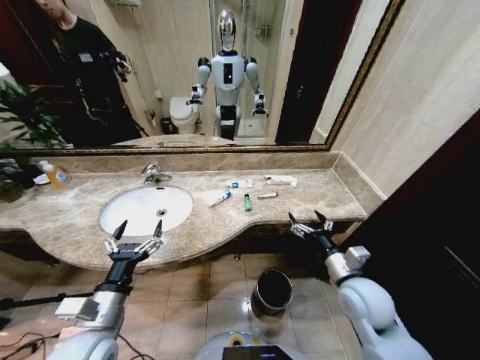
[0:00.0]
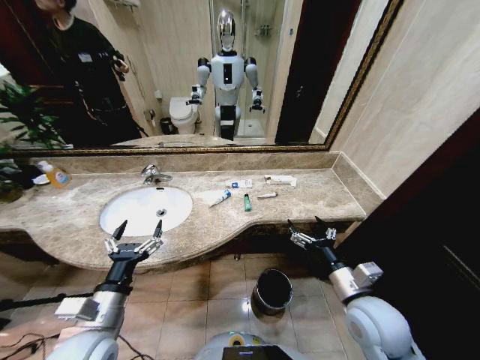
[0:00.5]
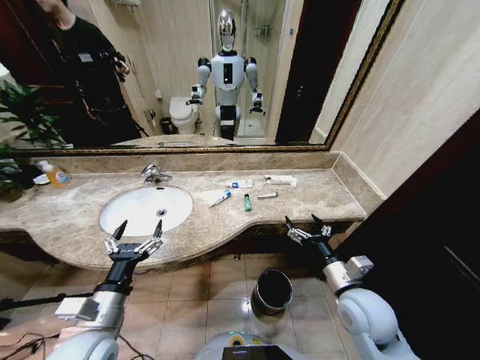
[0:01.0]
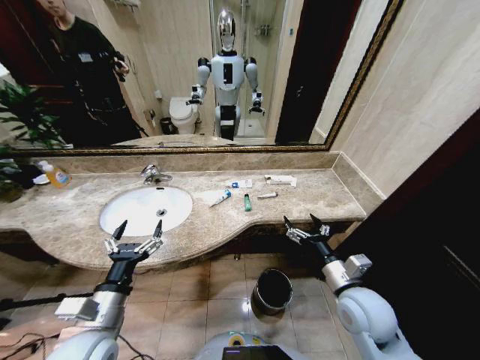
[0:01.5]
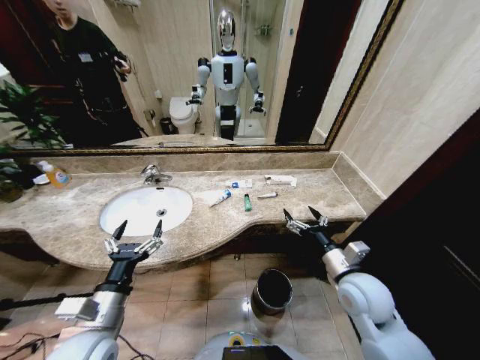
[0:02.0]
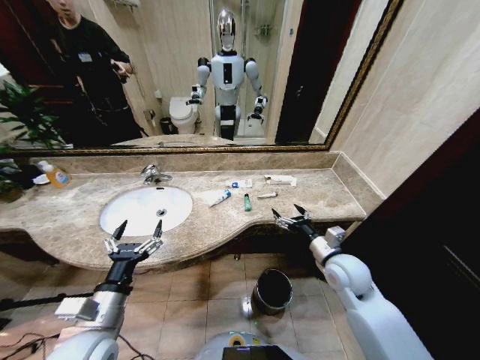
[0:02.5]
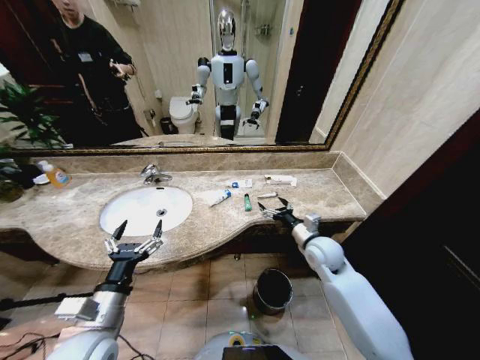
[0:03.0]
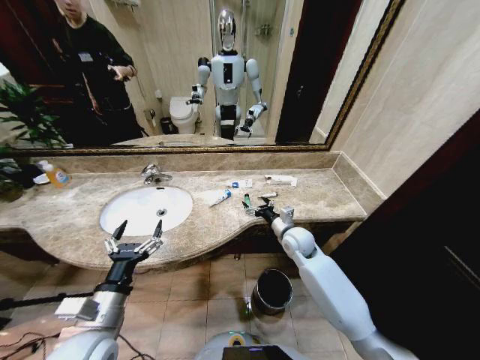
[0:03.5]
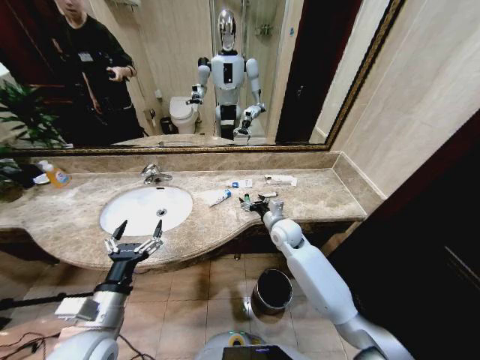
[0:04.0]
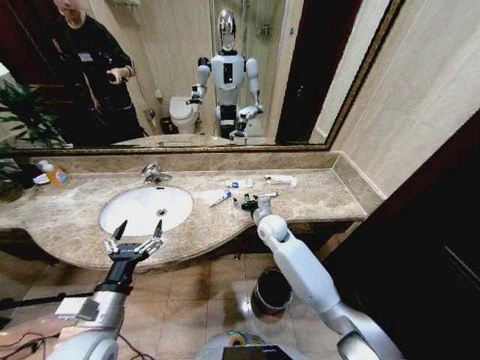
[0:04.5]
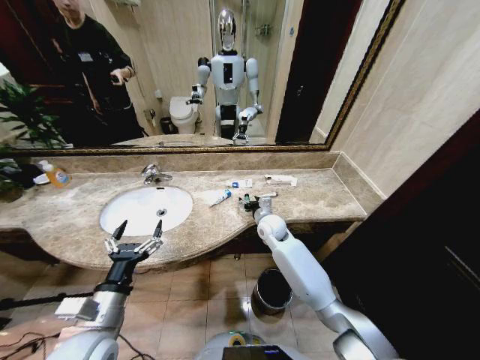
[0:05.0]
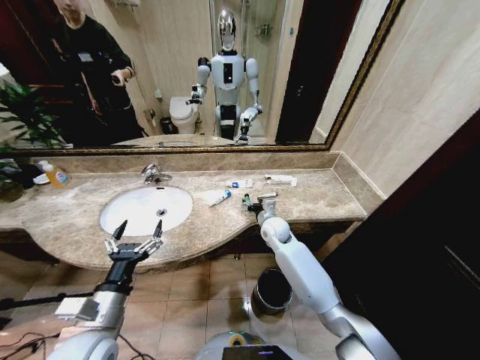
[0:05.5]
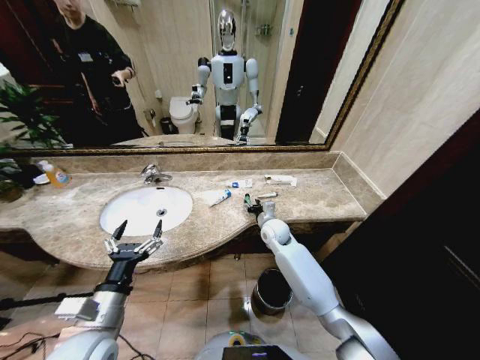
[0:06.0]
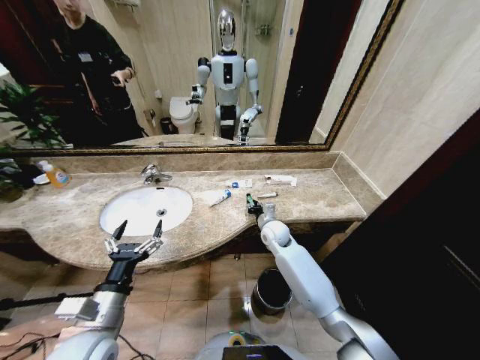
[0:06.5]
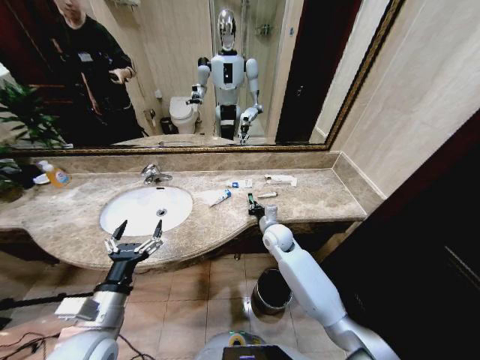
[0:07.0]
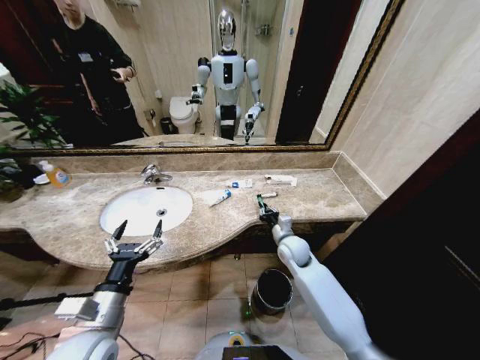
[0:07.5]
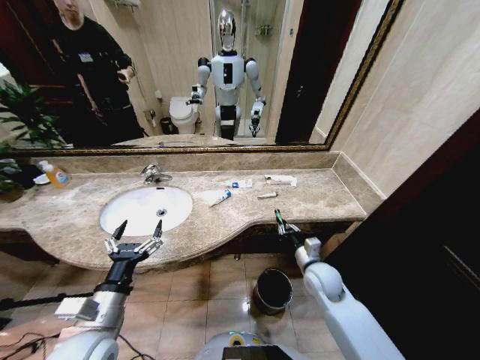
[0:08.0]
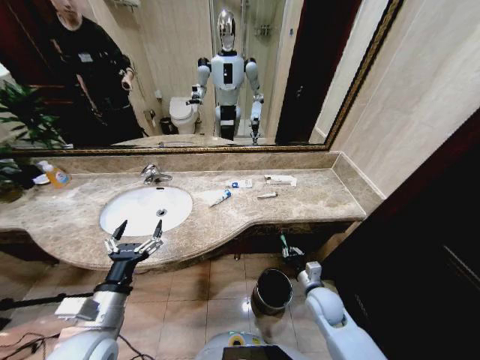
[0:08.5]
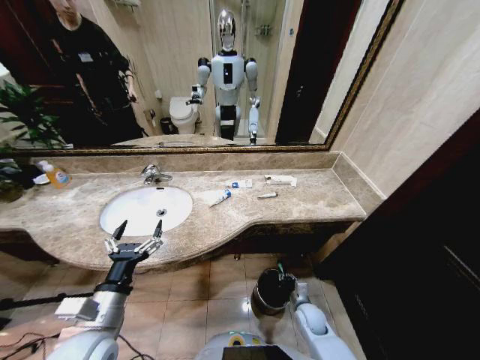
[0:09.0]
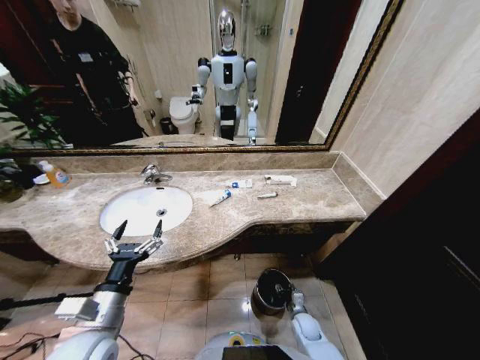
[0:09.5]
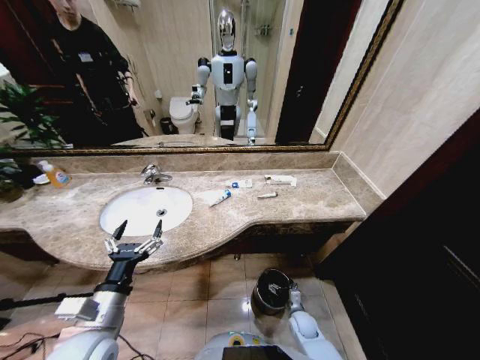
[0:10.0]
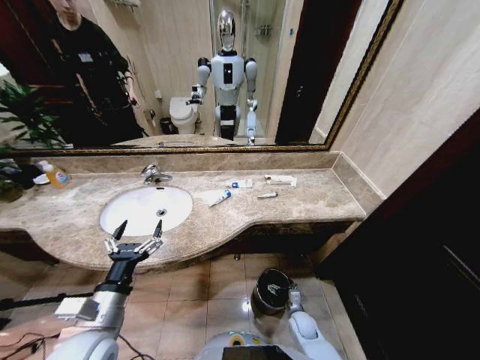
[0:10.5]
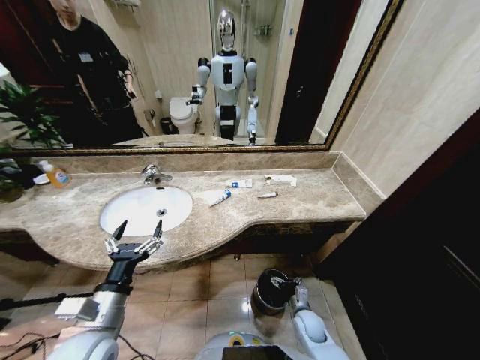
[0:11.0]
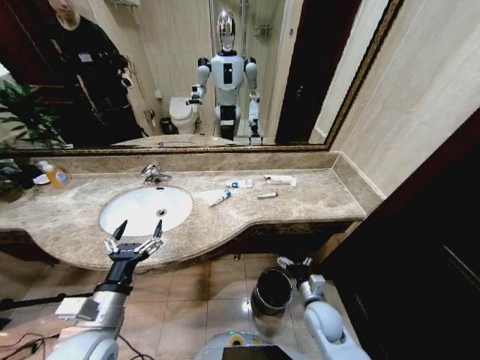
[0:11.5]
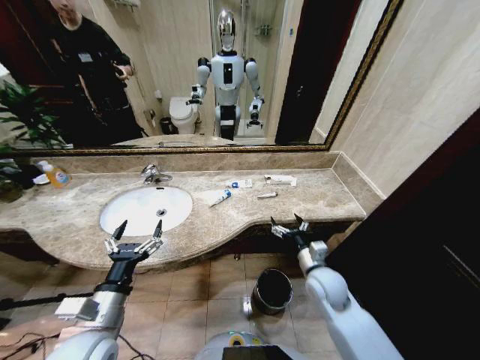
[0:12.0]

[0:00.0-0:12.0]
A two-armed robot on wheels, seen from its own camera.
Task of the whole recording: Pick up the trash from the sink and place it in the trash bin.
2.0 to 4.0 s: The right gripper shifts about 25 cm forward and to the left.
4.0 to 6.0 s: The right gripper closes its fingers.
6.0 to 8.0 s: The right gripper heads backward and to the right, covering approximately 20 cm, and closes up.
8.0 to 10.0 s: The right gripper shifts some 25 cm downward, and opens up.
10.0 to 12.0 s: The right gripper is displaced upward by about 25 cm.

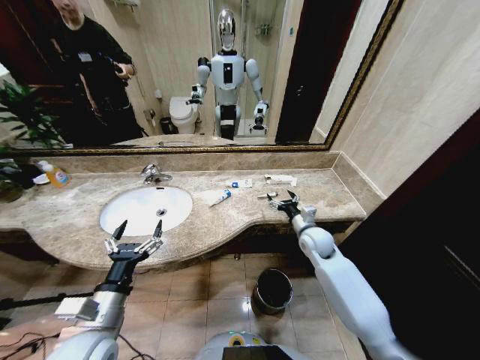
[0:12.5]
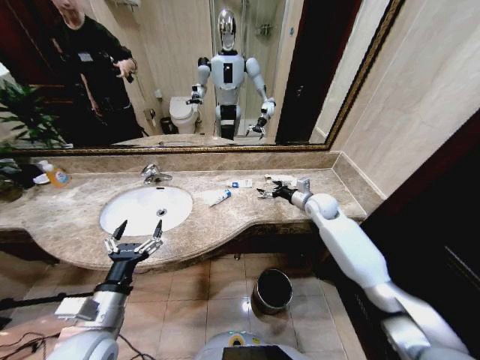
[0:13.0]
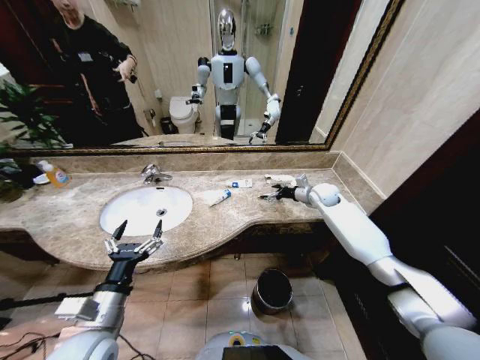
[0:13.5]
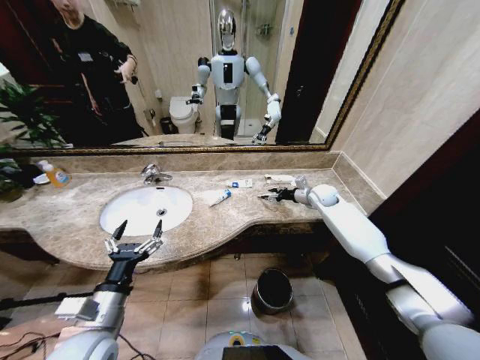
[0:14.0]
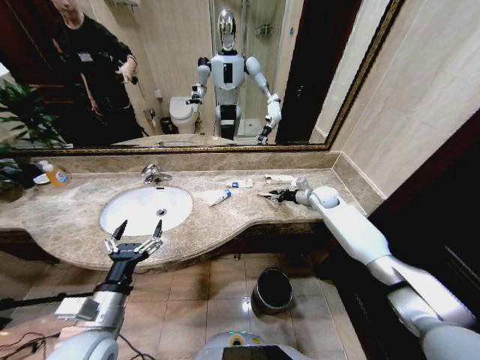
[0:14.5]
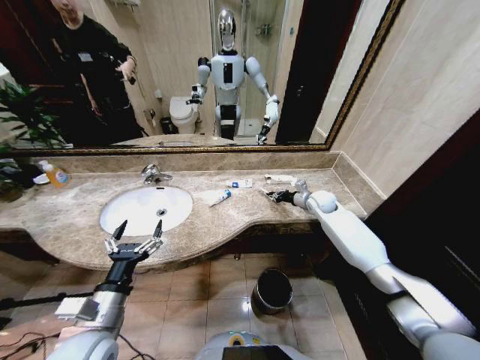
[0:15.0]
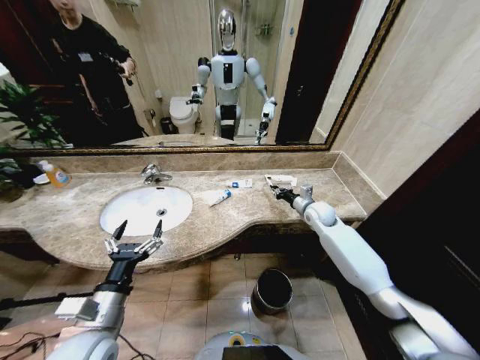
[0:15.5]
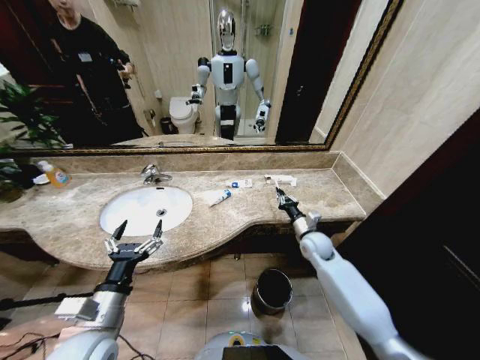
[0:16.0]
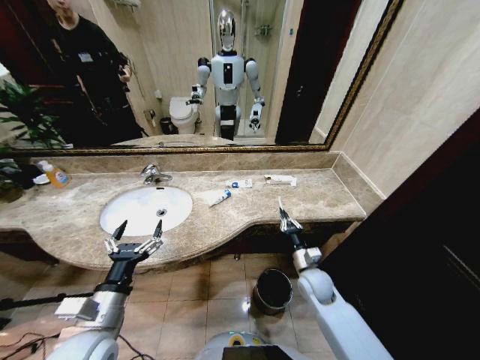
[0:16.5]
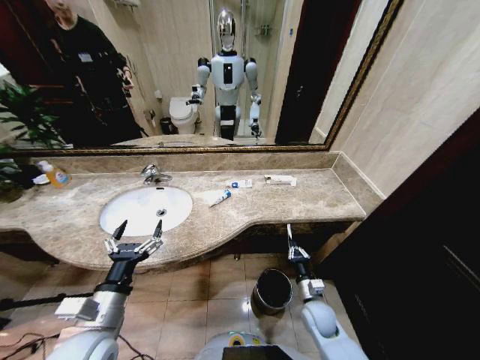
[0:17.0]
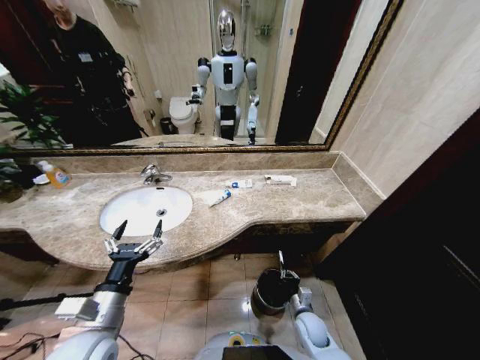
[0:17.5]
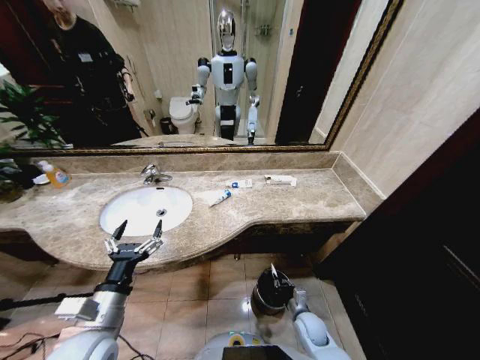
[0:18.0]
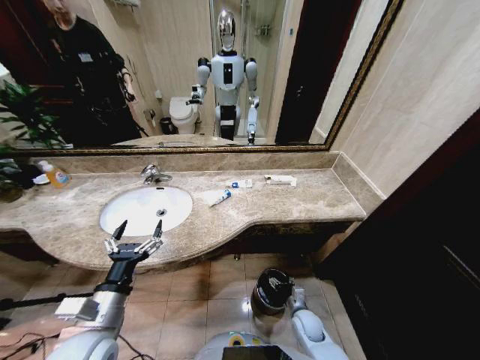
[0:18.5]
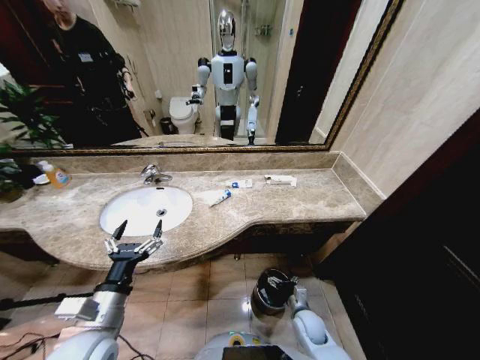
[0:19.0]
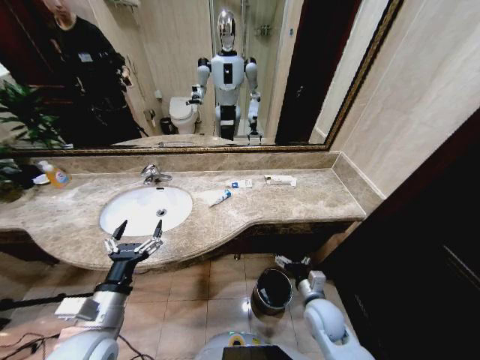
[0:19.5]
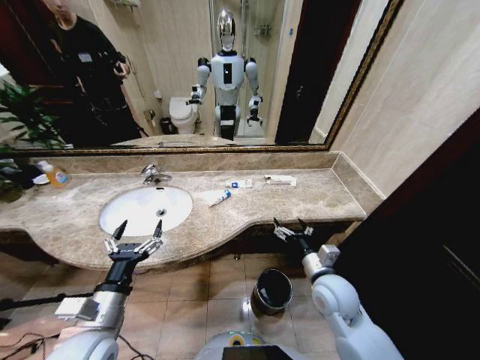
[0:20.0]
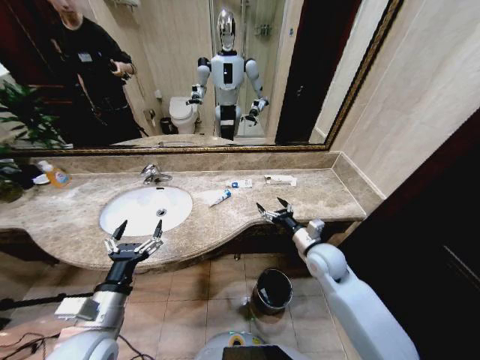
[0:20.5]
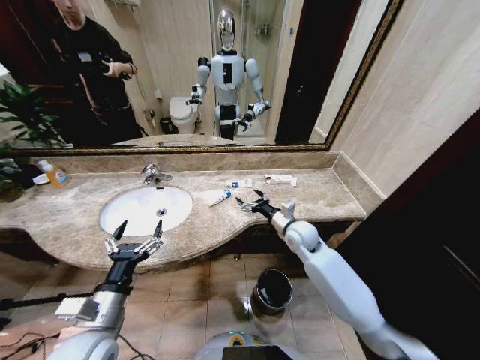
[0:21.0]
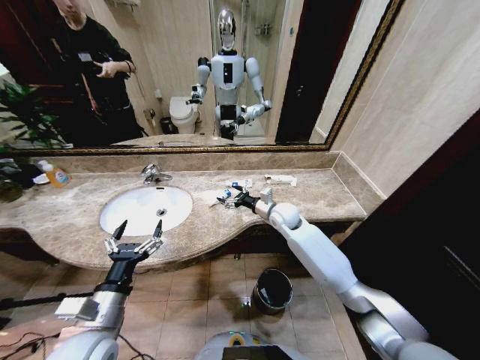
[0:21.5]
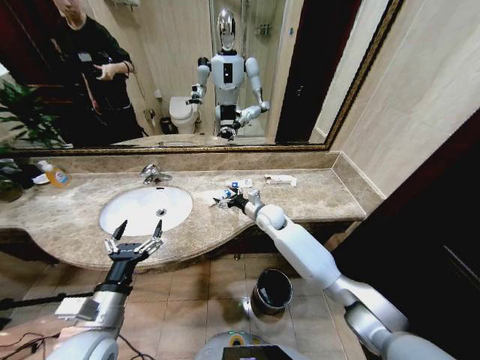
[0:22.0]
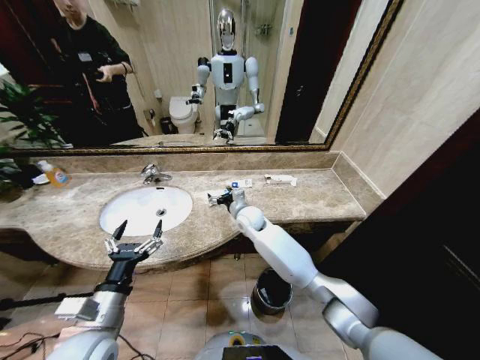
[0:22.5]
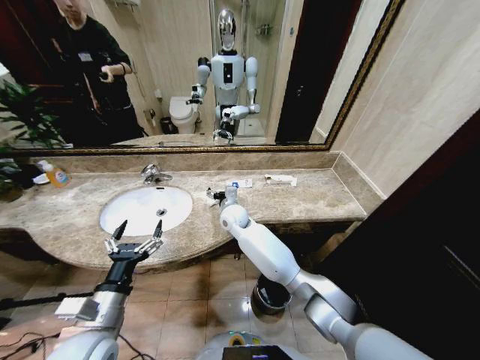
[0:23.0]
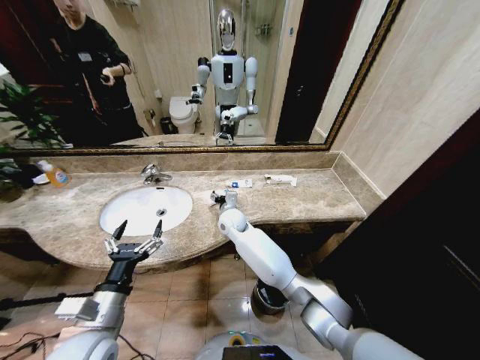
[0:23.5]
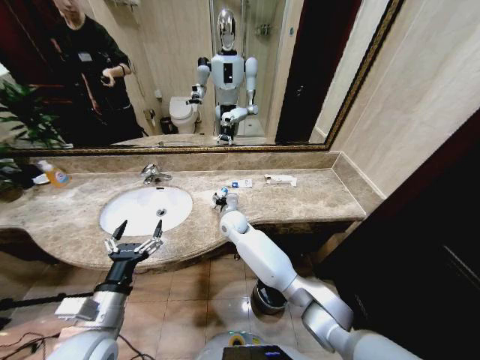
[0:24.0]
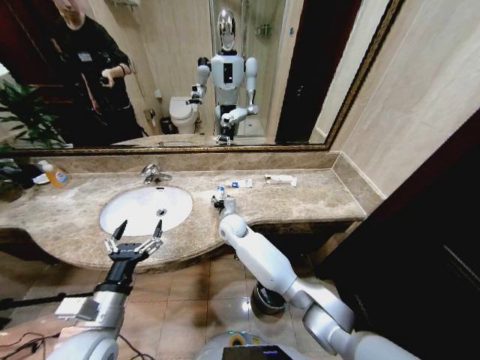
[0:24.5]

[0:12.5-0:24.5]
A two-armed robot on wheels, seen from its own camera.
Task of the whole recording: Pick up the trash from the sink and place it in the trash bin.
12.5 to 14.5 s: The right gripper goes some 20 cm forward and to the right, and closes.
14.5 to 16.5 s: The right gripper is displaced backward and downward by some 30 cm, and closes its fingers.
16.5 to 18.5 s: The right gripper moves downward and backward, roughly 15 cm, and opens up.
18.5 to 20.5 s: The right gripper goes about 25 cm upward.
20.5 to 22.5 s: The right gripper goes about 25 cm to the left and forward.
22.5 to 24.5 s: The right gripper heads to the left, covering some 5 cm.

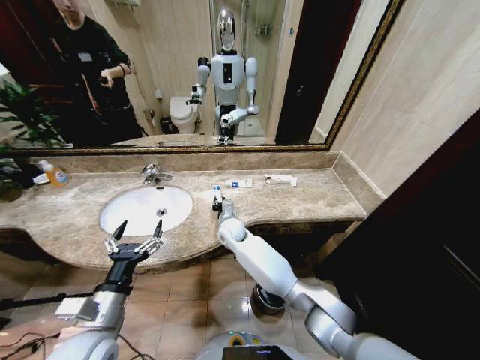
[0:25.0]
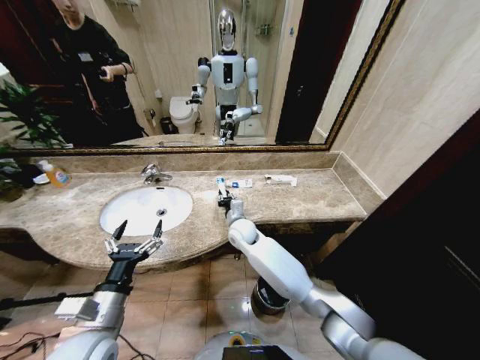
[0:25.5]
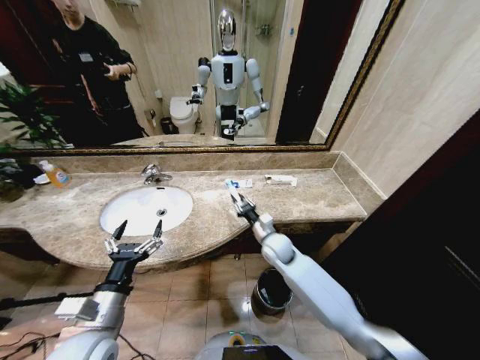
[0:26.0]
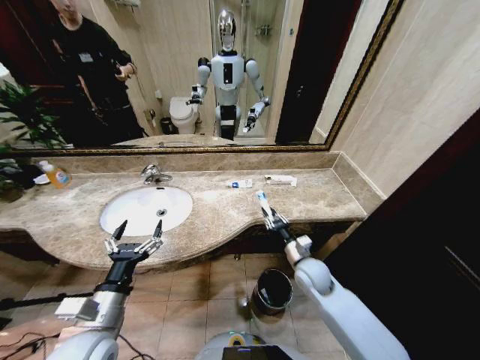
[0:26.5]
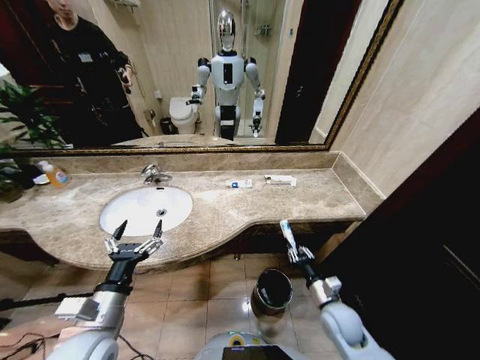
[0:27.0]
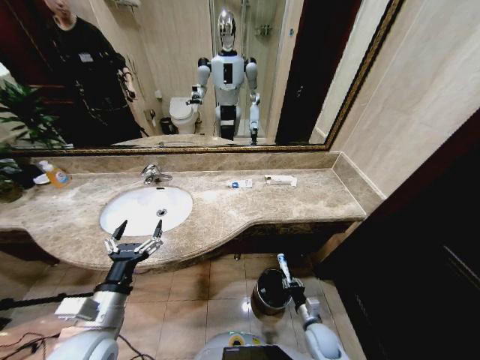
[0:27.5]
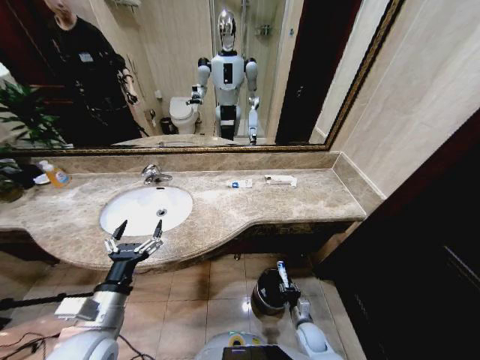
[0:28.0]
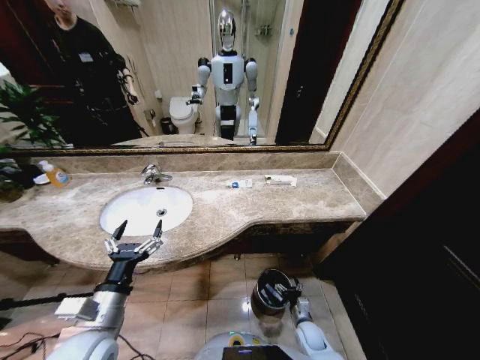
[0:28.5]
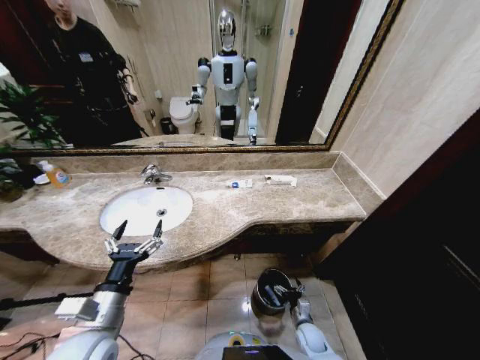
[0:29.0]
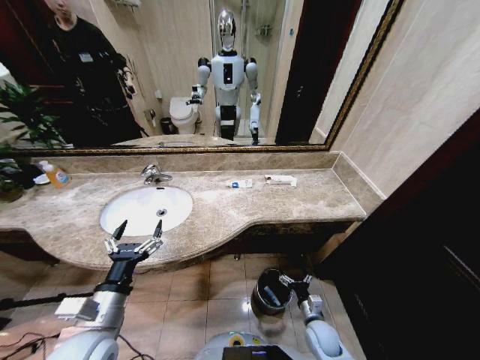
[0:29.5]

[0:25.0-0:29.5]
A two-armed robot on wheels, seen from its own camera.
Task of the whole recording: Pick up the trash from the sink and place it in the trash bin.
25.0 to 27.0 s: The right gripper is displaced to the right and backward by about 40 cm.
27.0 to 29.5 s: The right gripper shifts approximately 15 cm downward, and opens up.
